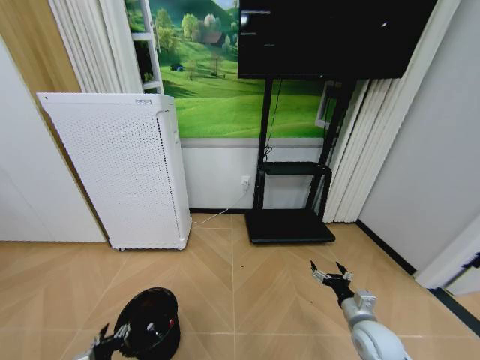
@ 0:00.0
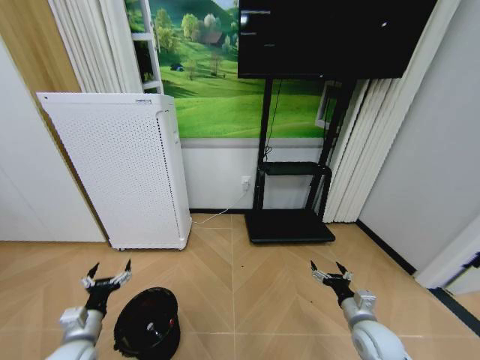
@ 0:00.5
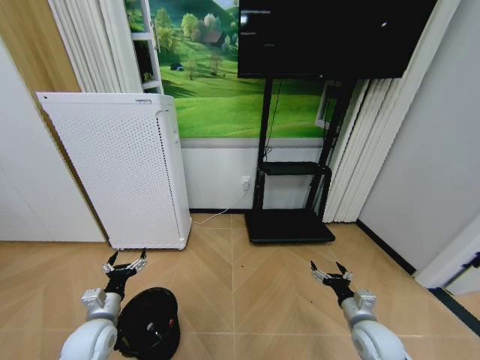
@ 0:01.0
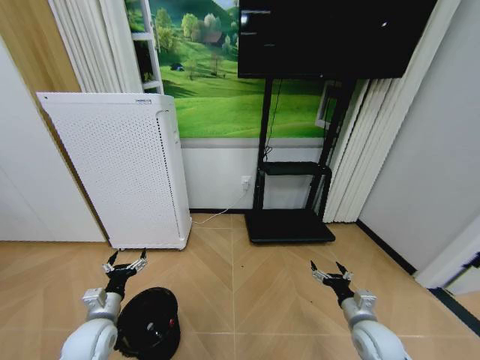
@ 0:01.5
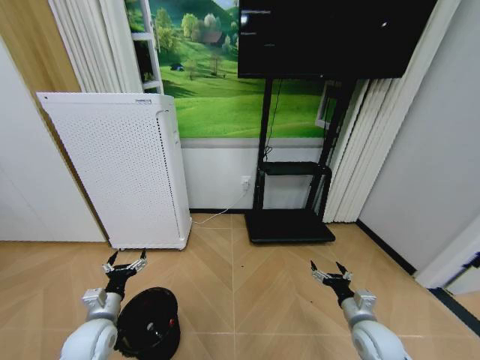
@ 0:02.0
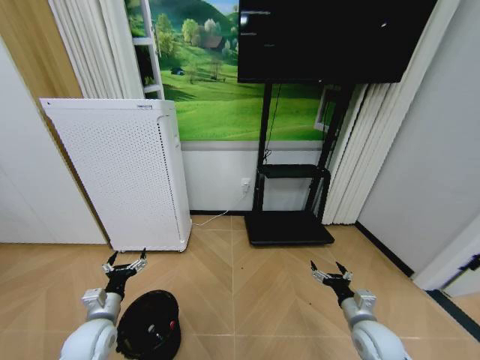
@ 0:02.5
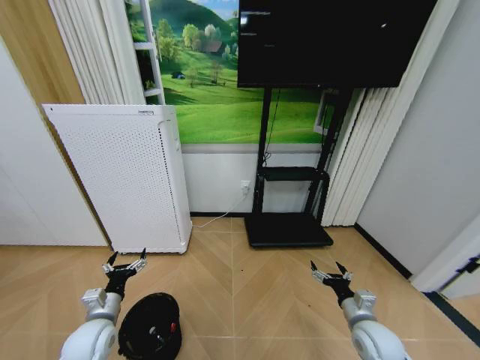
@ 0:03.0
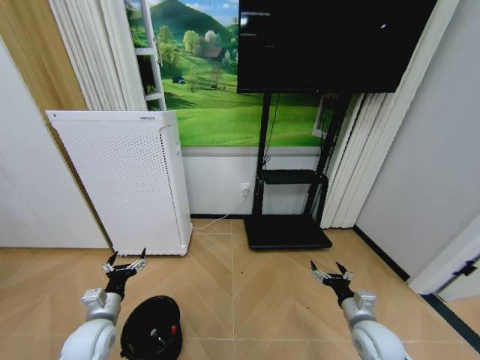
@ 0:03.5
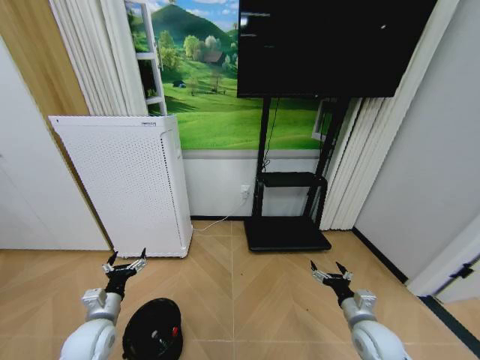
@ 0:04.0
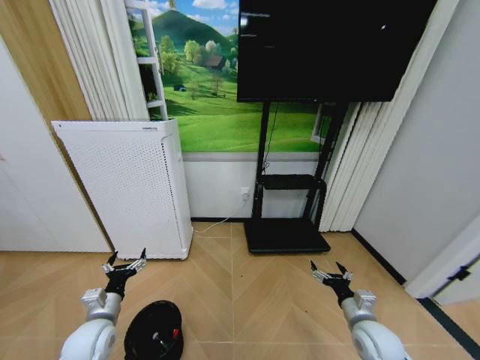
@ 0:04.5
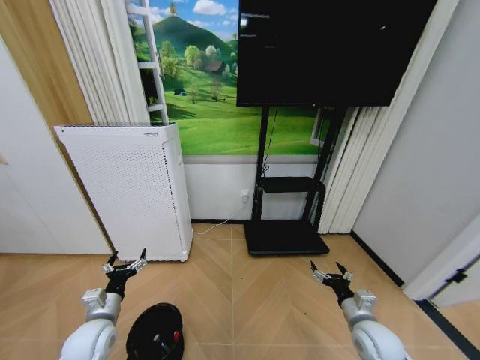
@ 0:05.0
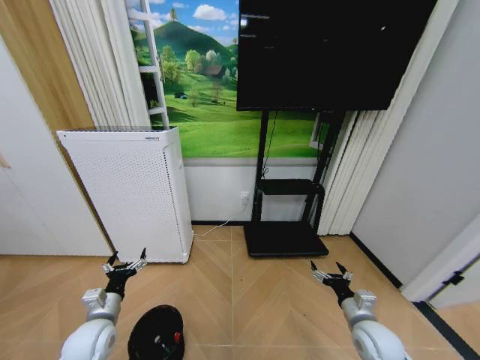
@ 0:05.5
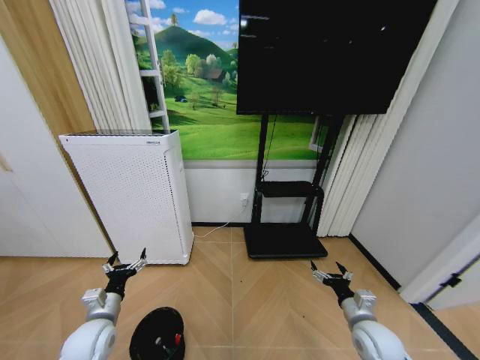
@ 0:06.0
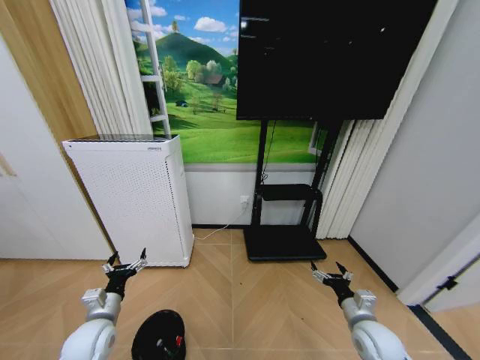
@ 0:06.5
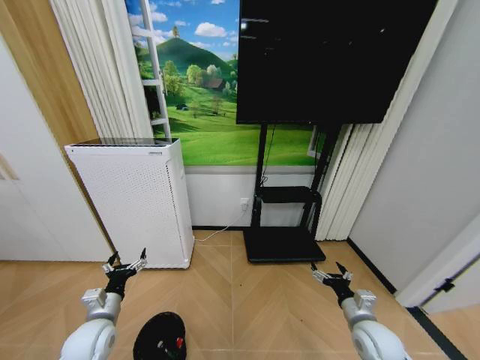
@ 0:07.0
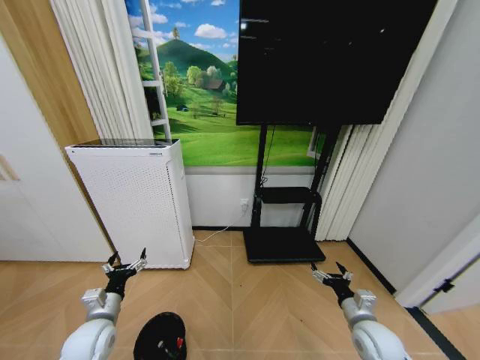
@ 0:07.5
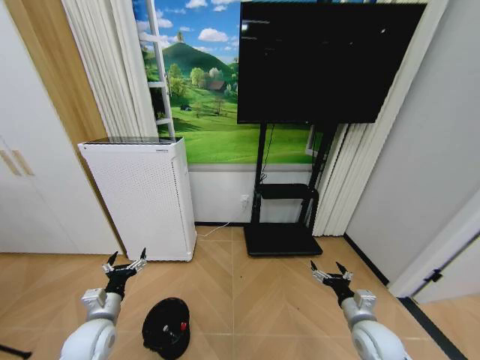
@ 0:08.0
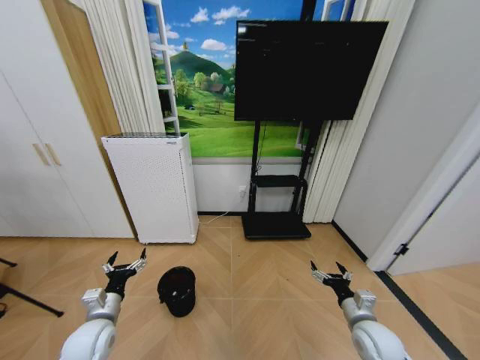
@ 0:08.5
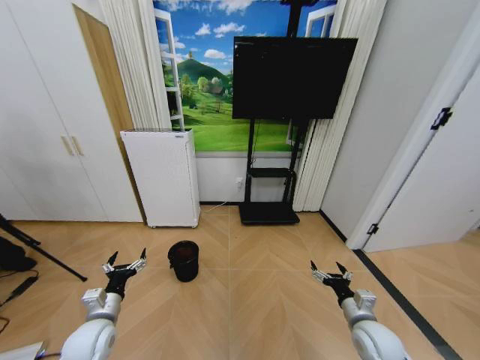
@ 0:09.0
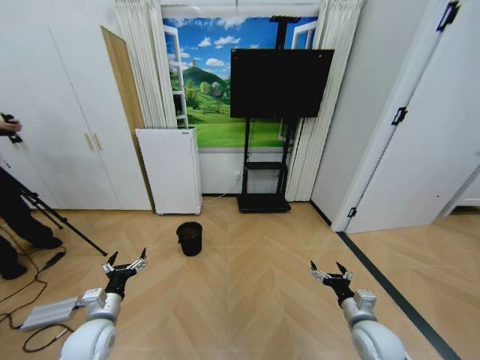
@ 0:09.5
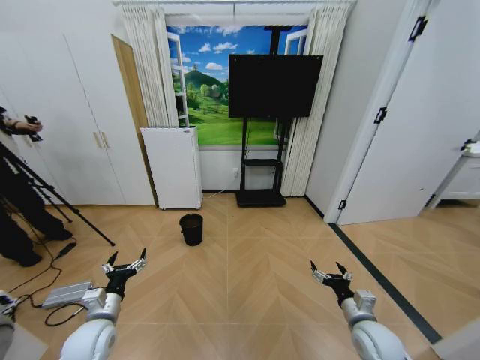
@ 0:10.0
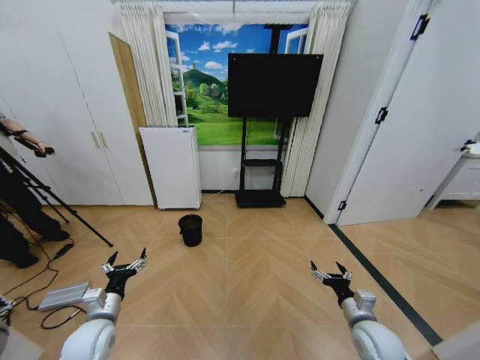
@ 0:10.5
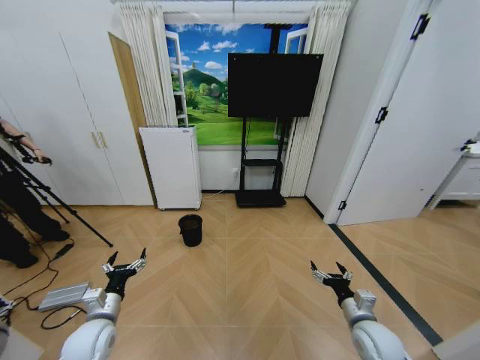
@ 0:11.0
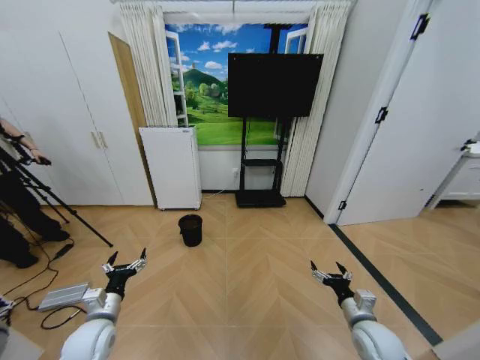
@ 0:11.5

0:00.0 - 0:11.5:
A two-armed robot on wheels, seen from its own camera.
Task of the whole recording: Pick up the trash bin and place the garbage on the floor into it.
0:00.0 - 0:02.0: The left gripper is displaced forward and upward by approximately 15 cm.
0:02.0 - 0:07.5: Neither gripper changes place.
0:09.5 - 0:11.5: The two grippers keep their place.

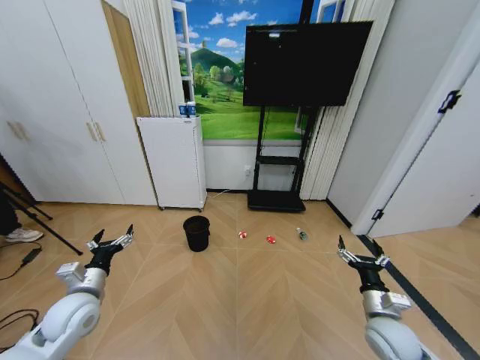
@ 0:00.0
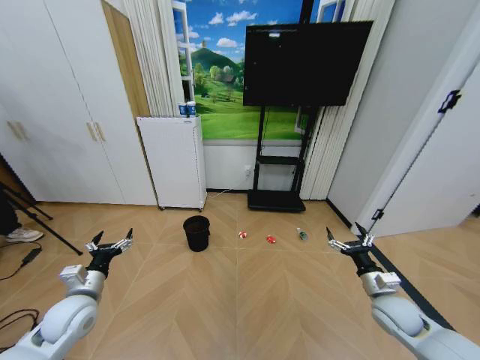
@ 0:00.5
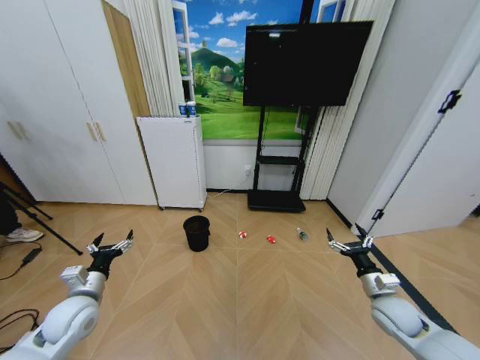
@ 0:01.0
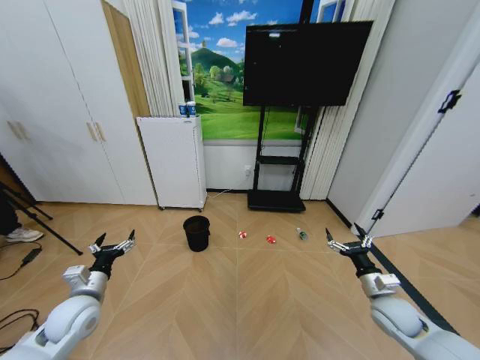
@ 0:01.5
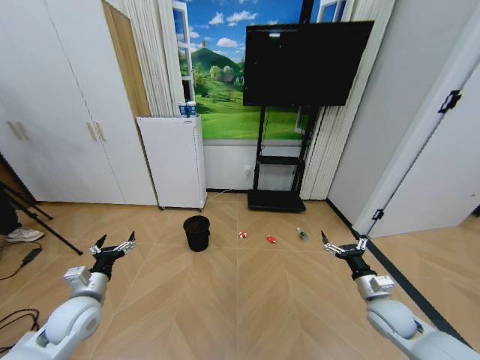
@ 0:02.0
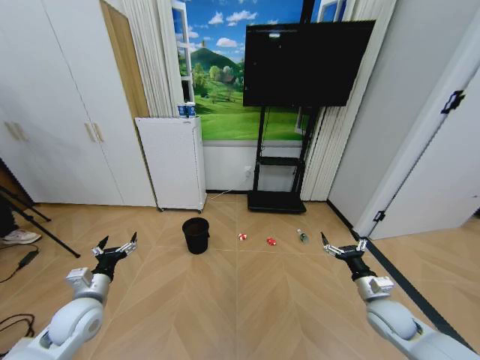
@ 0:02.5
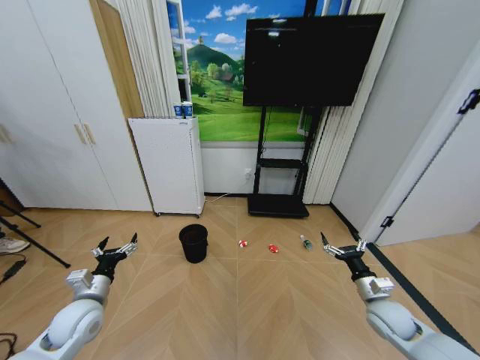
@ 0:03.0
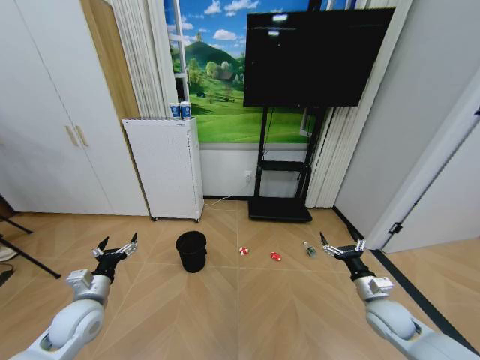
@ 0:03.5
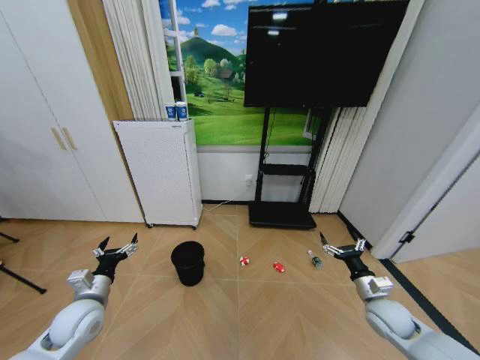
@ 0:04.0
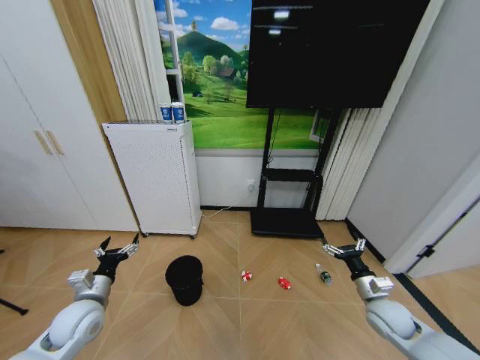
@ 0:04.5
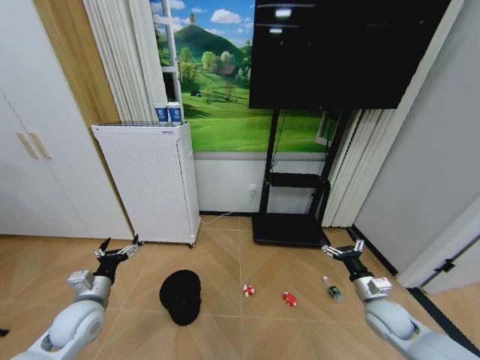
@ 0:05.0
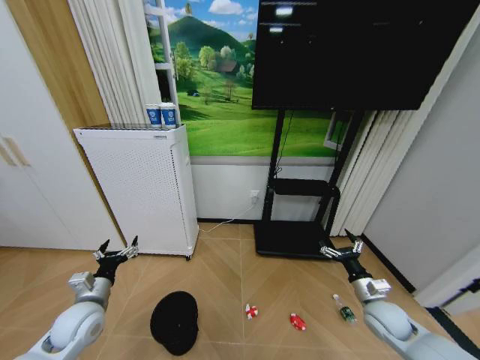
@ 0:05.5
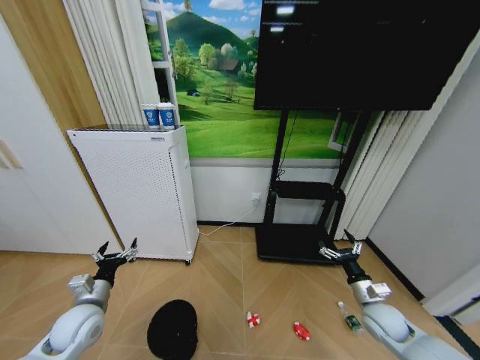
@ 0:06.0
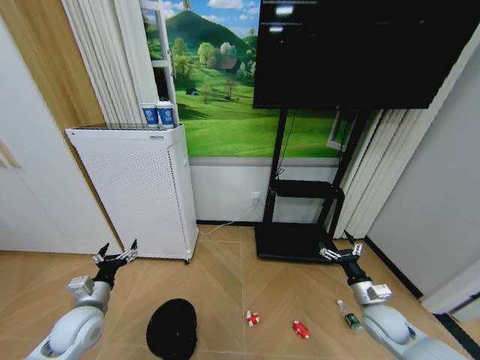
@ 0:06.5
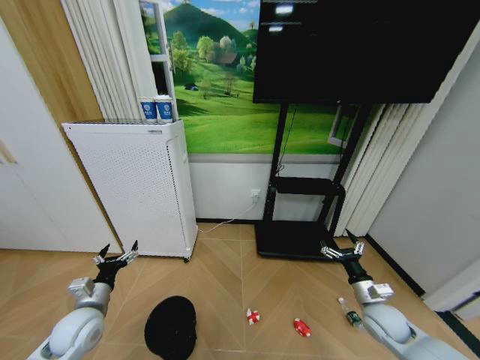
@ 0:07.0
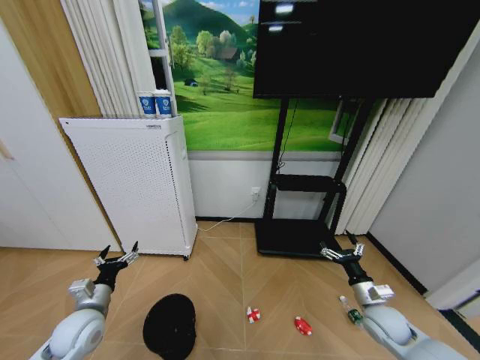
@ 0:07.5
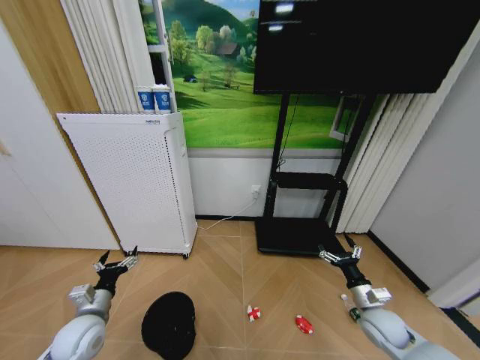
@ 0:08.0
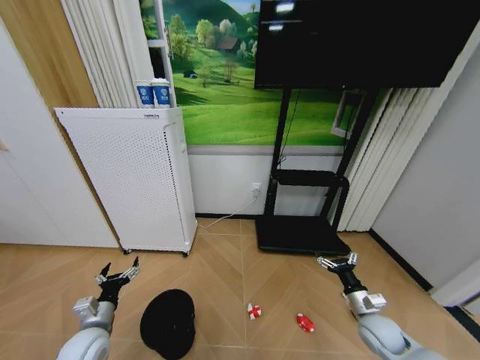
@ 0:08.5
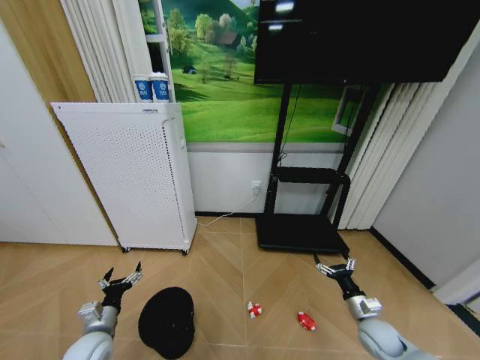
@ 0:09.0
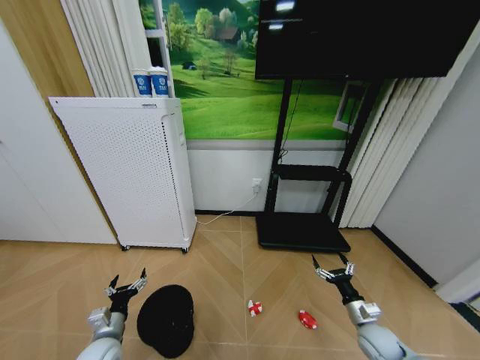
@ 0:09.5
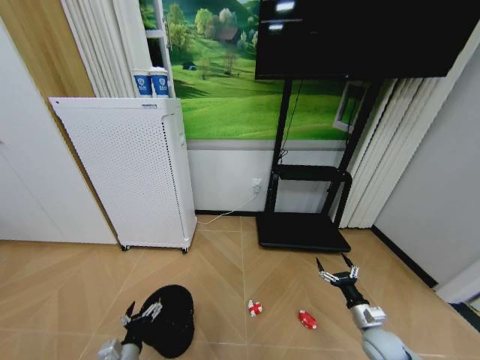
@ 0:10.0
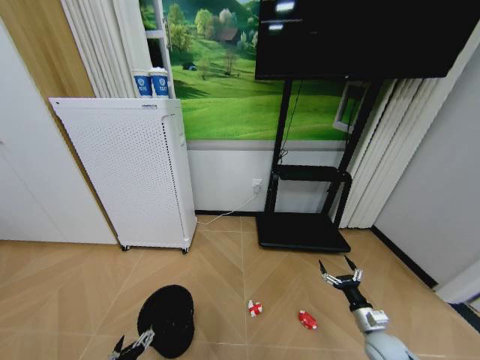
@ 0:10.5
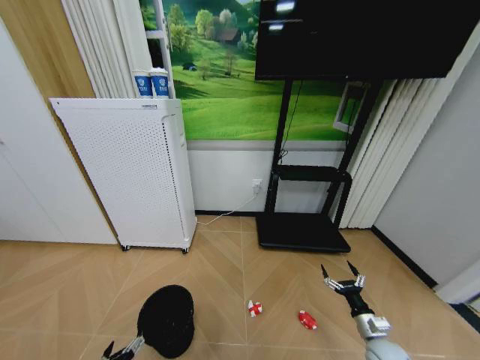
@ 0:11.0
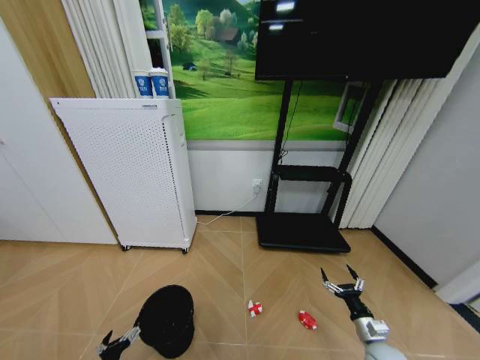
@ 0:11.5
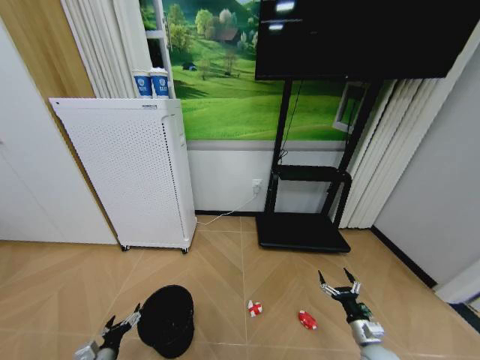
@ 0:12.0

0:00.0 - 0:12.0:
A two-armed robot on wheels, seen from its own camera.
Task of the whole recording: Pick up the trash bin and place the garbage on the floor into it.
0:08.0 - 0:10.0: The right gripper is displaced downward by some 5 cm, while the left gripper is displaced downward, backward and to the right by approximately 15 cm.
0:10.0 - 0:12.0: The right gripper changes place by roughly 5 cm, while the left gripper is displaced to the left by about 10 cm.

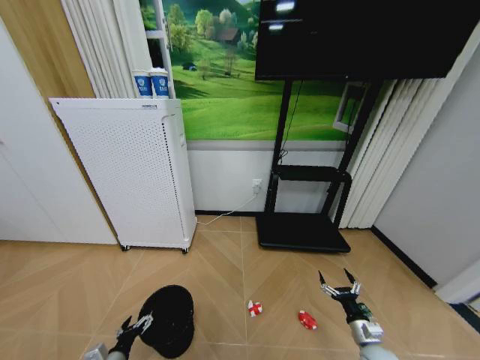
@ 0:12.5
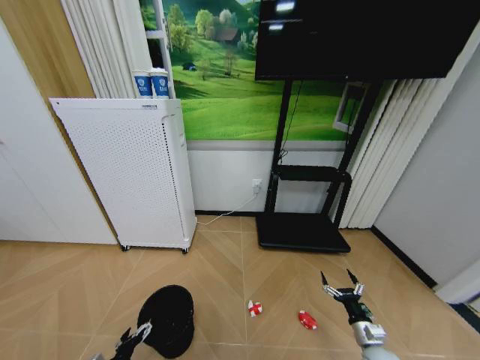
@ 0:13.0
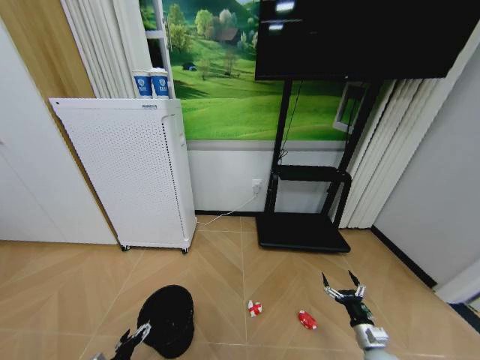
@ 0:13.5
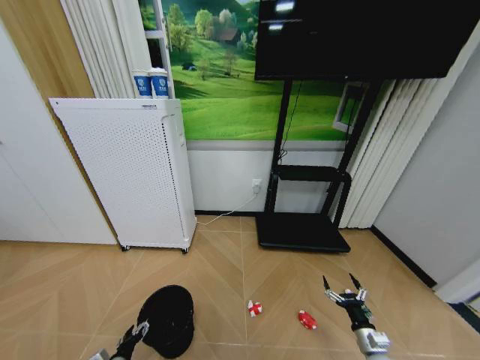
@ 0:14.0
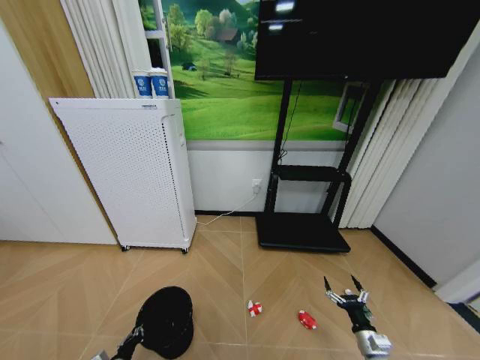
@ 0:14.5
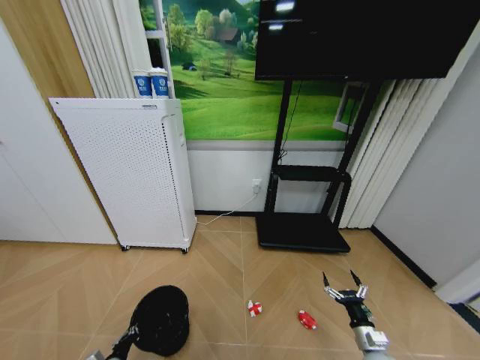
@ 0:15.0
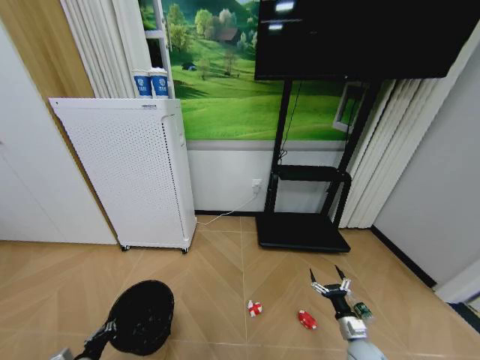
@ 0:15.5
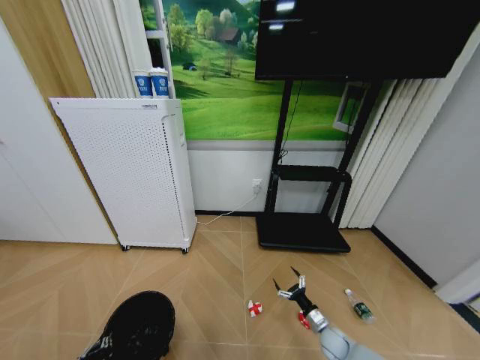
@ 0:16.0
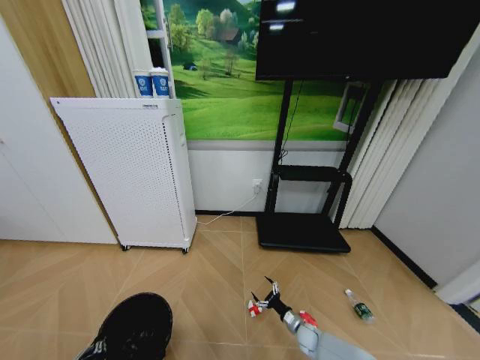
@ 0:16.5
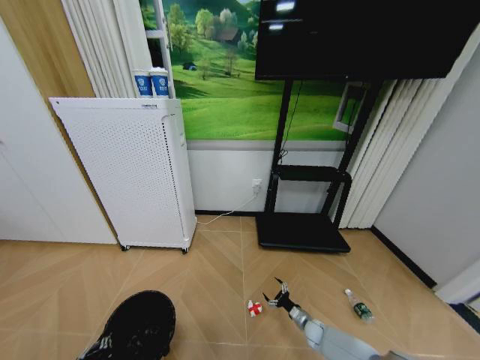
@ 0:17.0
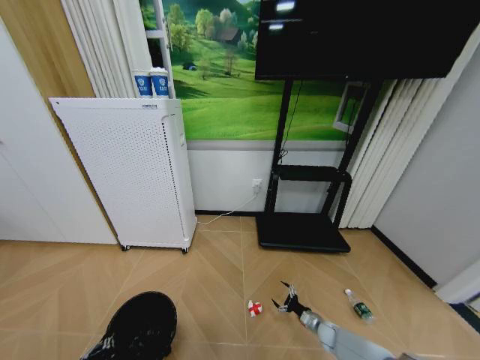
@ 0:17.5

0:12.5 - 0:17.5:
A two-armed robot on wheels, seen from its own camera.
Task of the whole recording: Pick up the trash bin and place the garbage on the floor into it.
0:12.5 - 0:15.0: The left gripper closes.
0:15.0 - 0:17.5: The left gripper heads upward and backward, covering about 10 cm, while the right gripper goes some 20 cm downward and forward.
